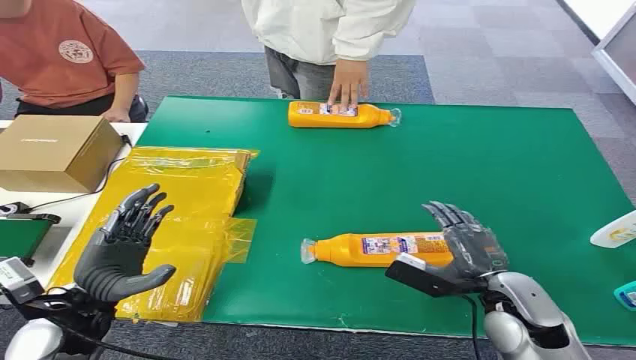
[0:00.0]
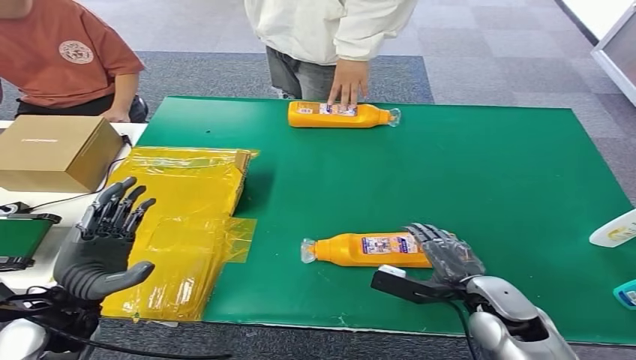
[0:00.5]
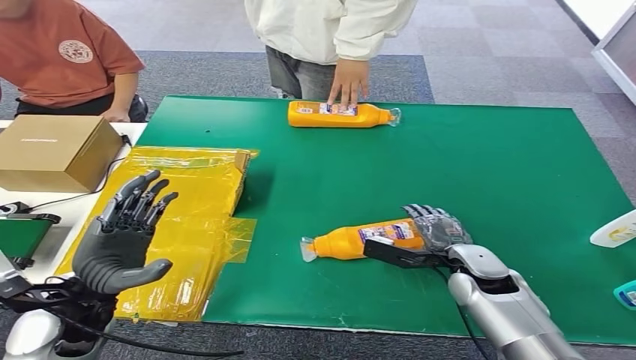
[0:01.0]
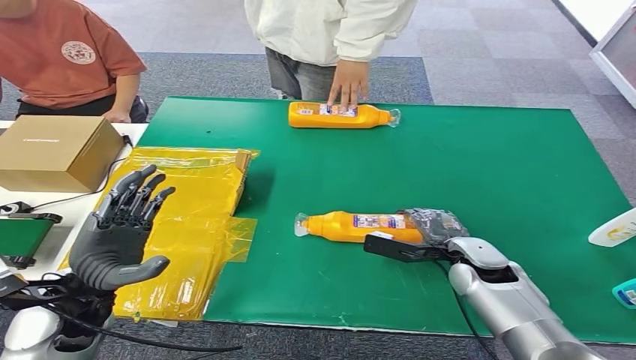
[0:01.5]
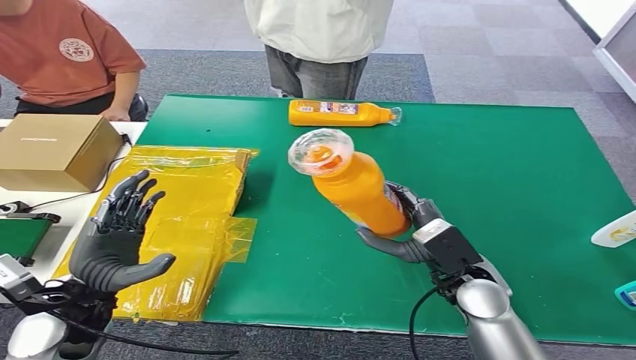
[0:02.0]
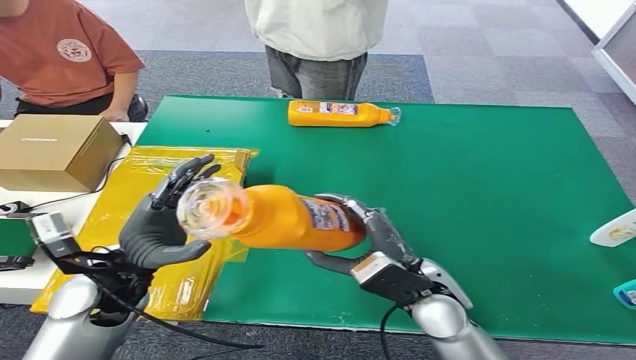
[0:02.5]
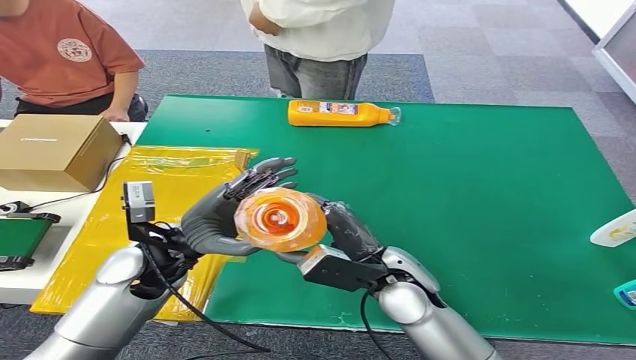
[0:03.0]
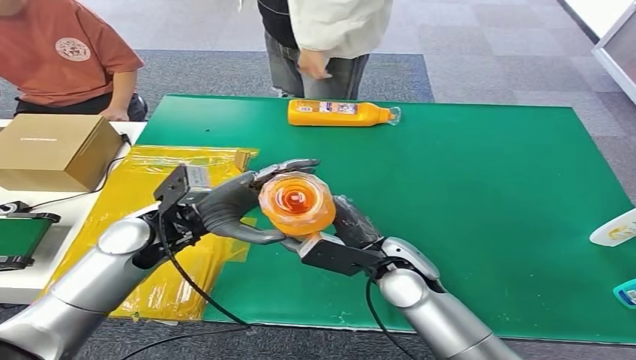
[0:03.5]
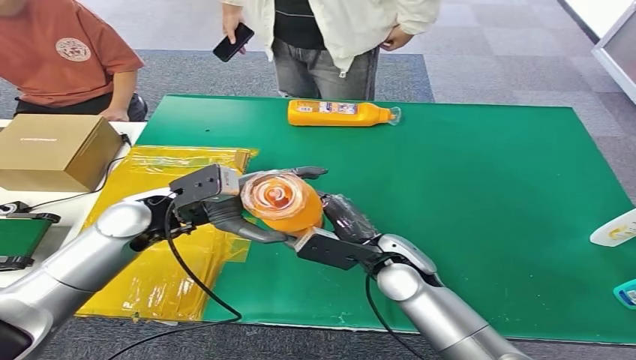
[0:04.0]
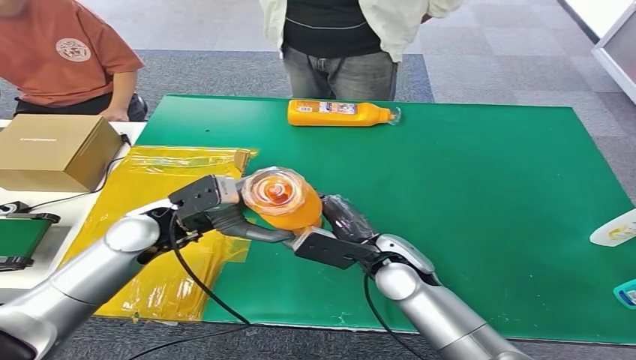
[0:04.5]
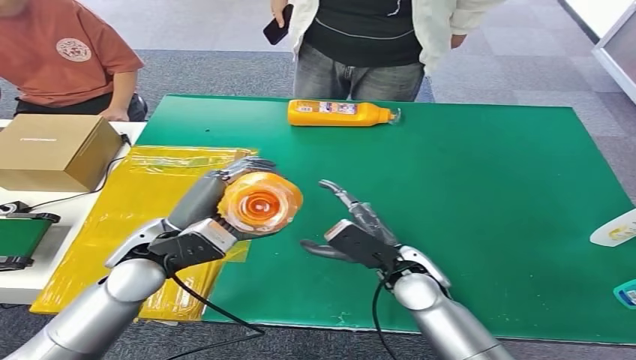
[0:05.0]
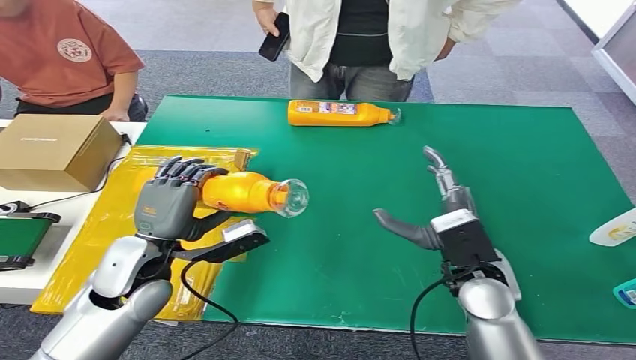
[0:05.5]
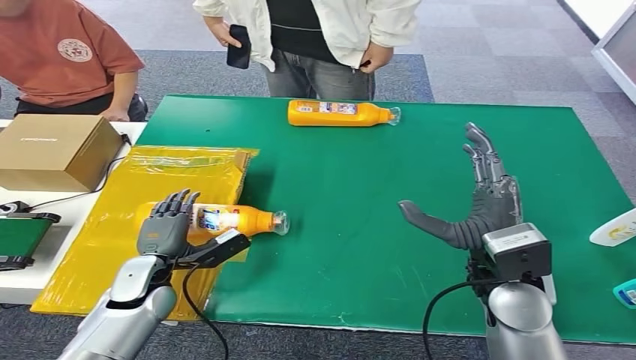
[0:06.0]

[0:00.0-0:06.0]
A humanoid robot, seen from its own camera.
Step, 0:00.0 to 0:02.0: Pick up the bottle from the table.
Step, 0:02.5 to 0:06.0: Turn the bottle to the front side.

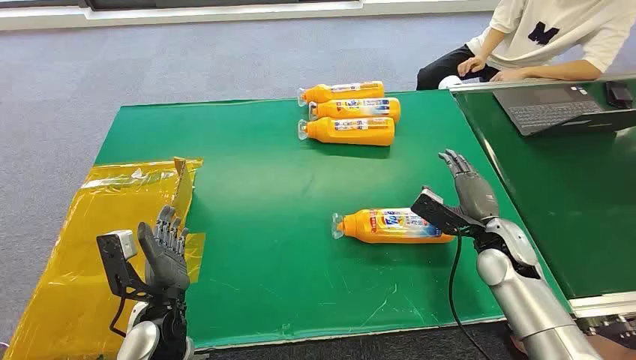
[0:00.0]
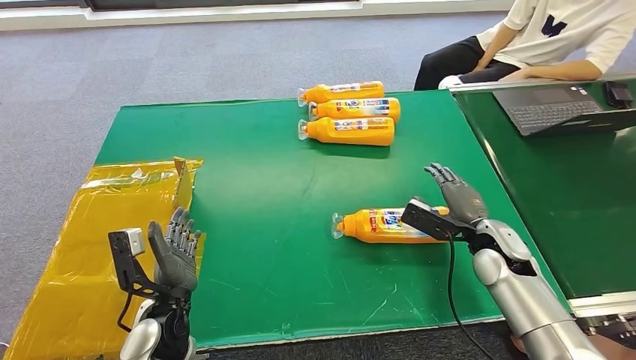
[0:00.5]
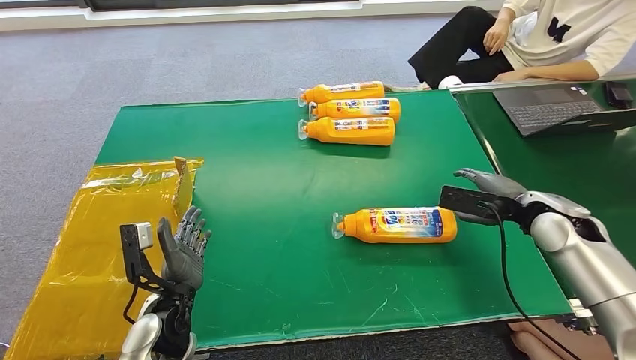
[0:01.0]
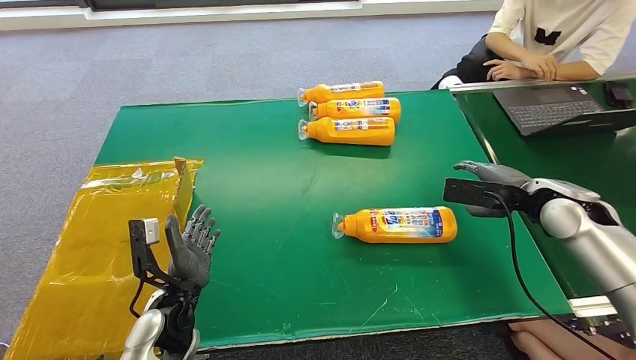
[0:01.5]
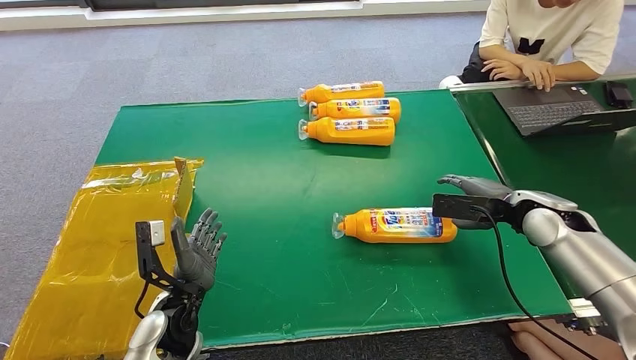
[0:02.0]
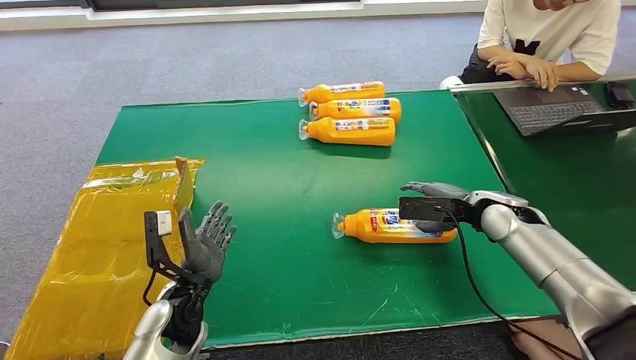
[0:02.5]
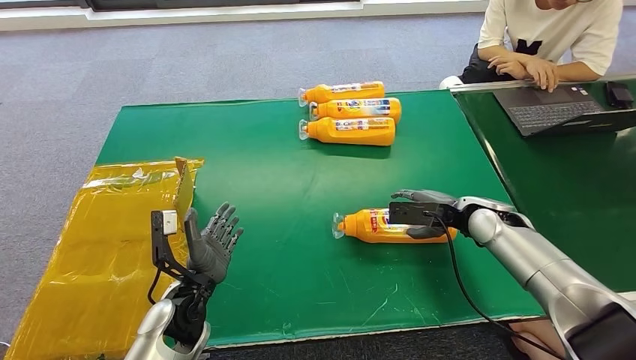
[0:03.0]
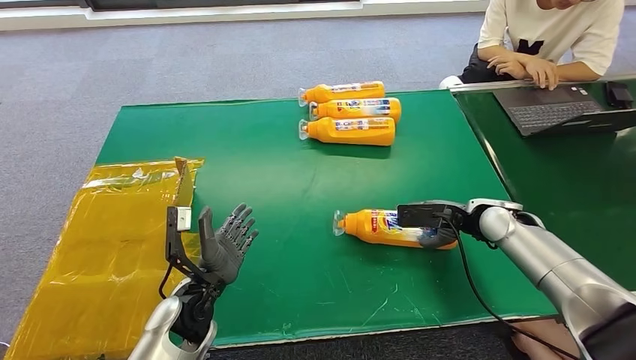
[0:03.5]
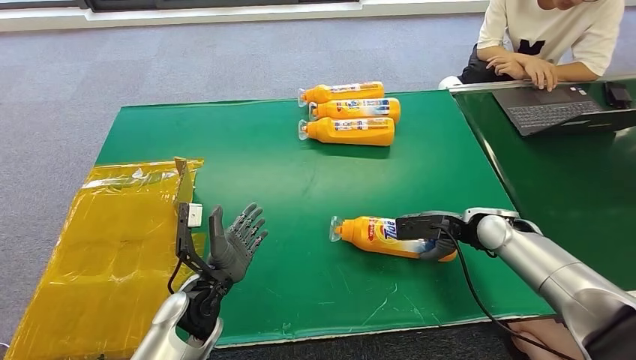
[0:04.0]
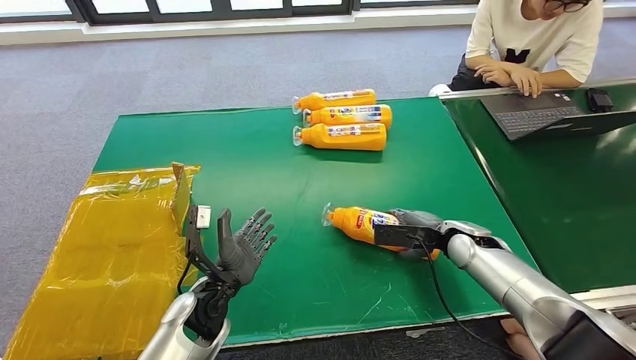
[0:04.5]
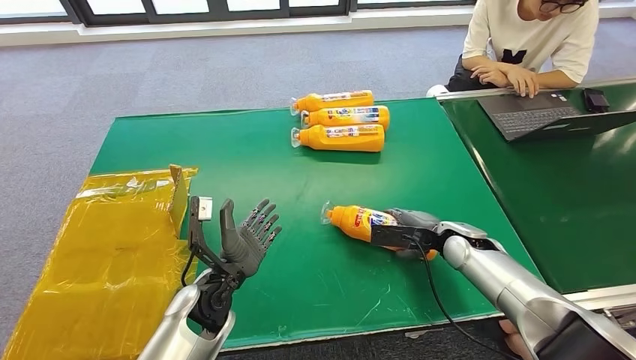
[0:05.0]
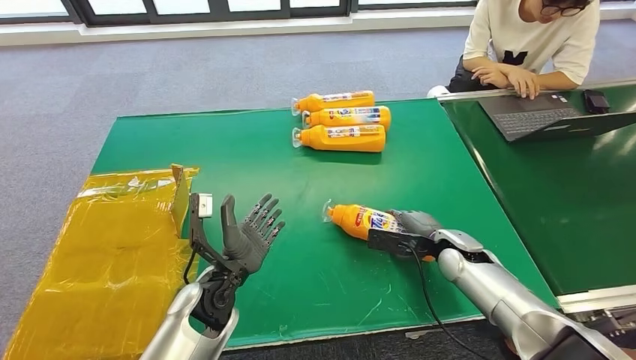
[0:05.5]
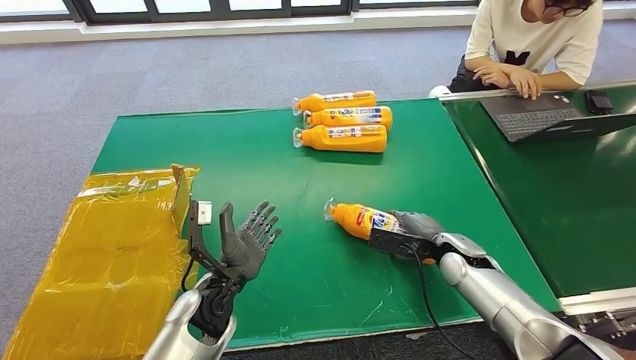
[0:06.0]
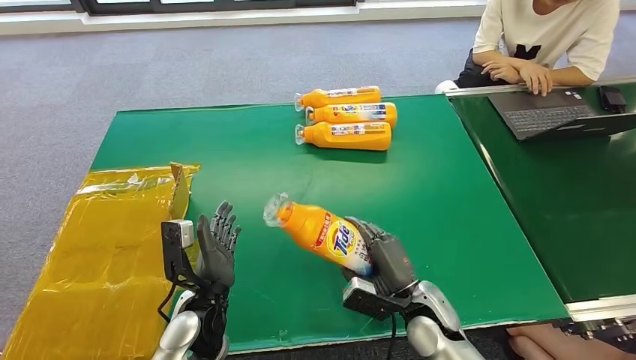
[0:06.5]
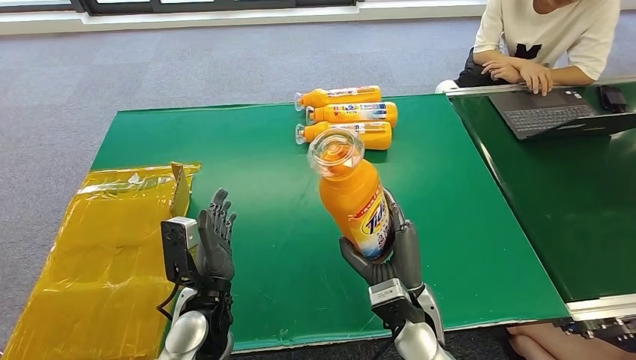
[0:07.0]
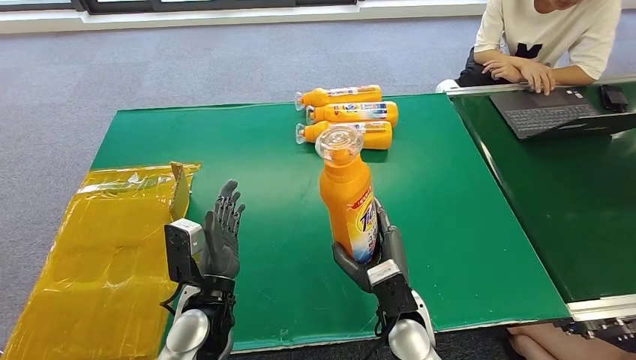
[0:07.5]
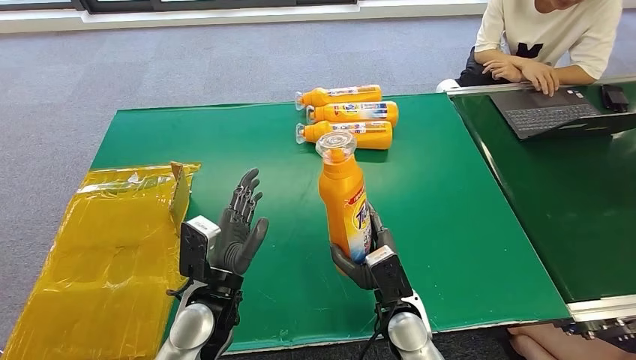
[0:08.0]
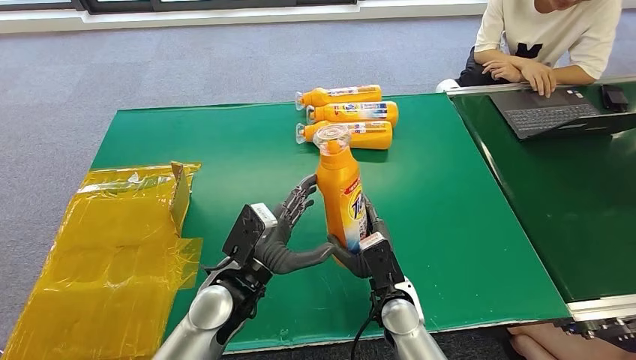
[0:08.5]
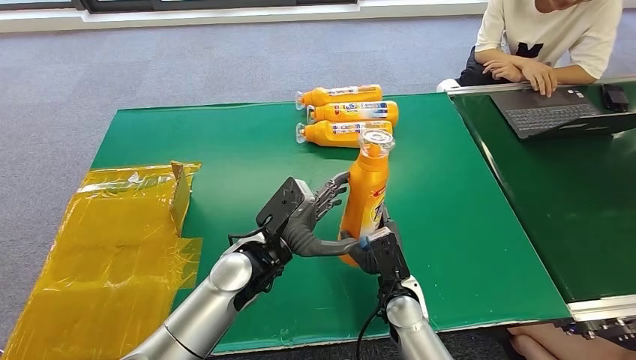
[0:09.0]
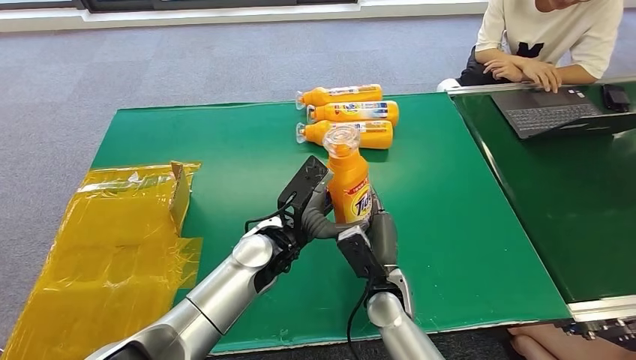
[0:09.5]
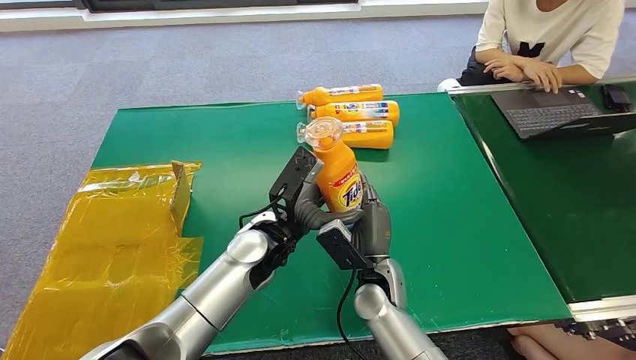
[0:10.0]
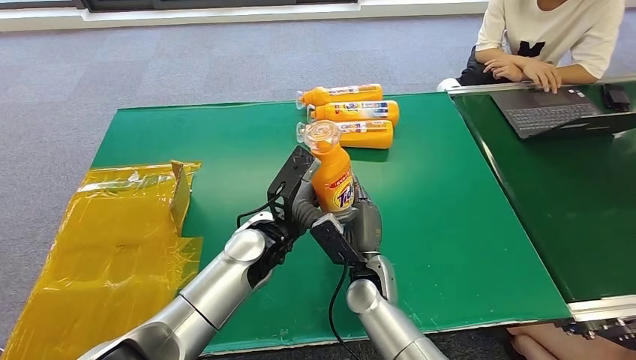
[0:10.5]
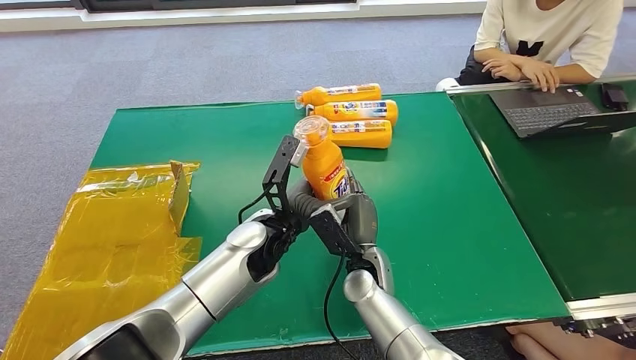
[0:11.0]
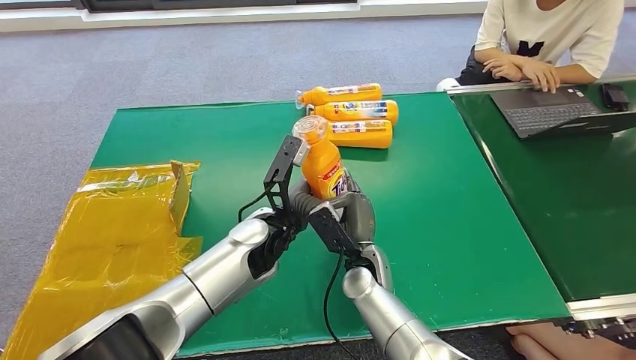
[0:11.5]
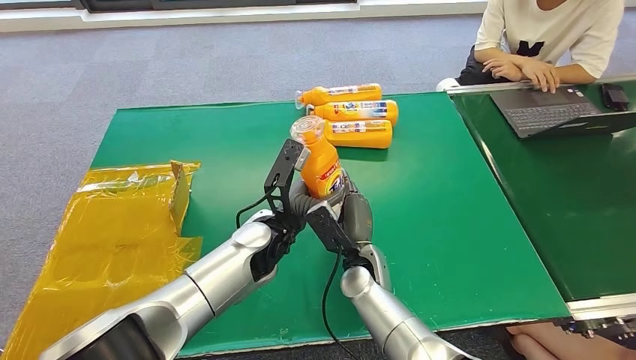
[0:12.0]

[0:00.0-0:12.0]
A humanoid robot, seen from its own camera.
Step, 0:00.0 to 0:07.0: Pick up the bottle from the table.
0:02.0 to 0:04.0: The right hand shifts about 10 cm downward and to the left.
0:08.0 to 0:10.0: The left hand travels forward and to the right by some 10 cm; the right hand is displaced forward by about 5 cm.
0:10.0 to 0:12.0: There are only small adjustments of the hands.

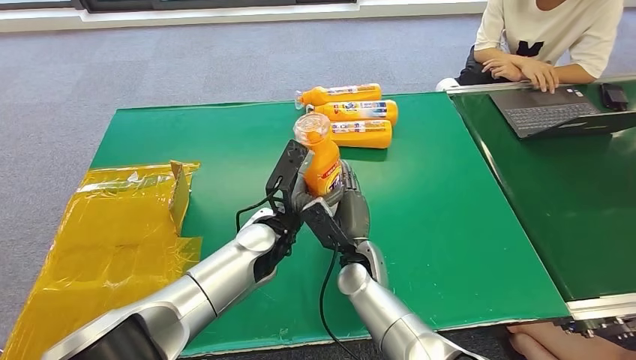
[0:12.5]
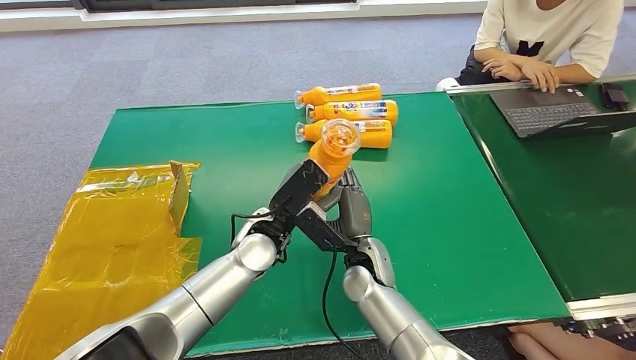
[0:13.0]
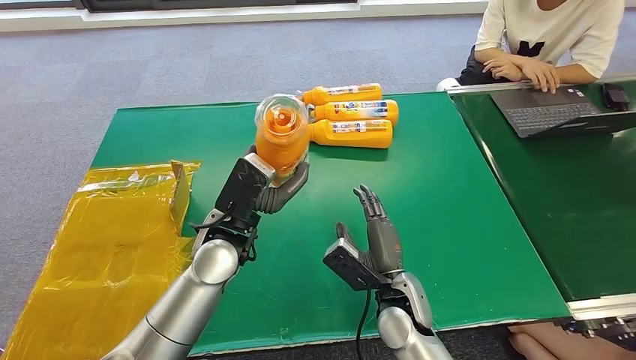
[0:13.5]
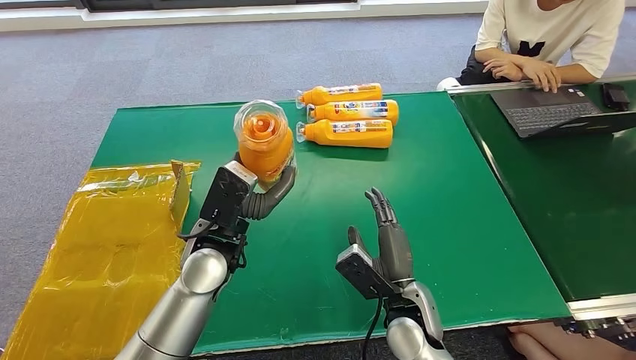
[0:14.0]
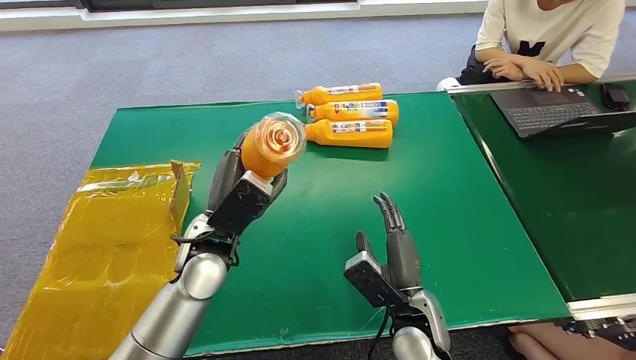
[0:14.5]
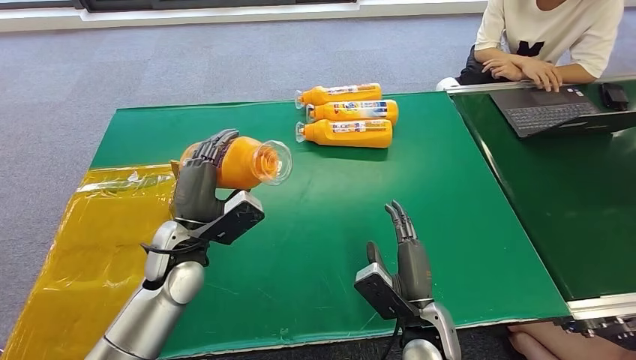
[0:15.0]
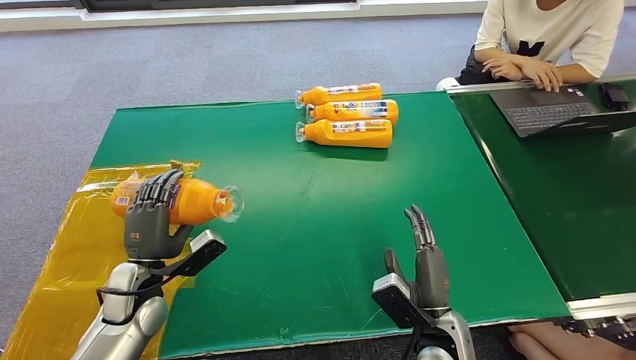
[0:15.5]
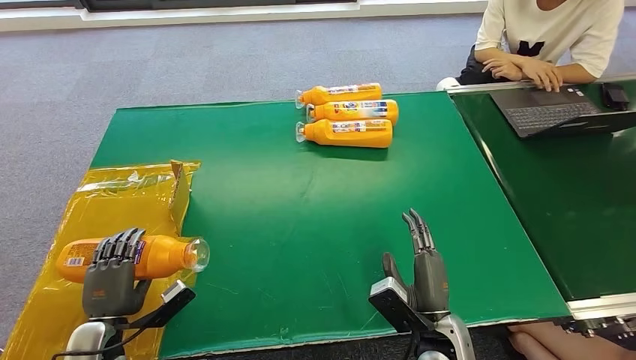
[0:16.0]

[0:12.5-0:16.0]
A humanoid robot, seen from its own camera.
Step, 0:12.5 to 0:16.0: Turn the bottle to the front side.
0:12.5 to 0:14.5: The right hand moves to the right and backward, some 15 cm. Meanwhile the left hand travels to the left by some 10 cm.
0:14.5 to 0:16.0: The right hand moves about 5 cm. The left hand heads to the left, downward and backward, covering some 30 cm.
